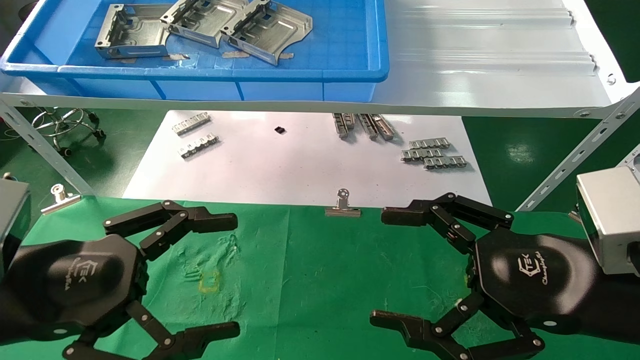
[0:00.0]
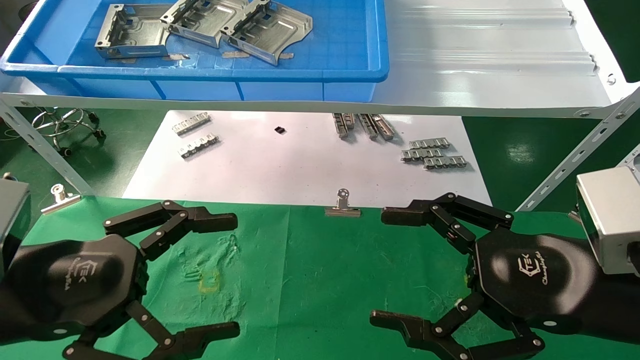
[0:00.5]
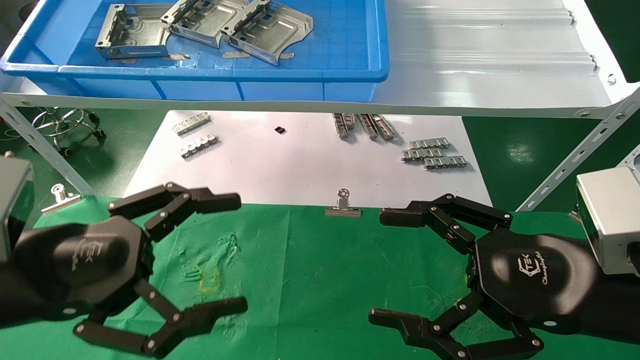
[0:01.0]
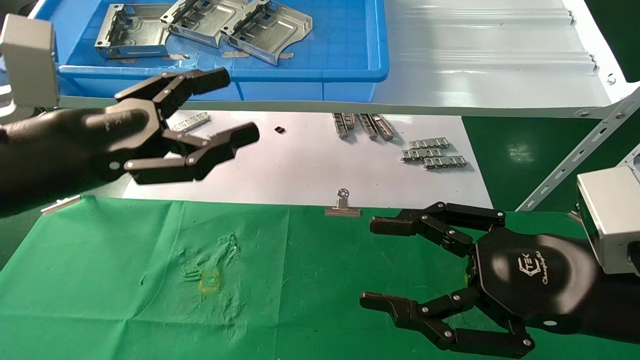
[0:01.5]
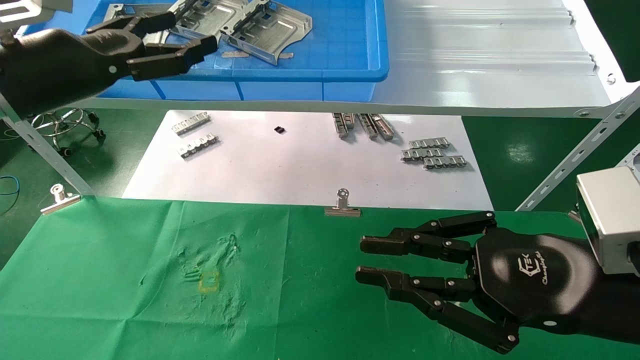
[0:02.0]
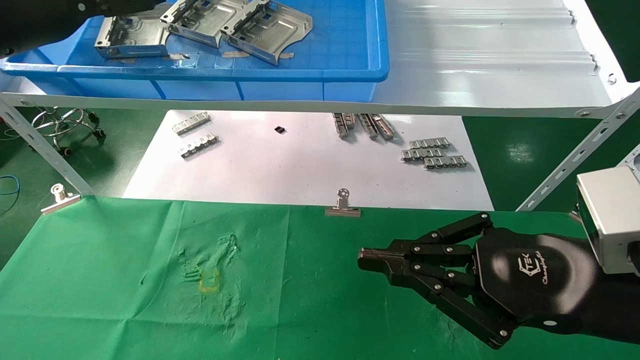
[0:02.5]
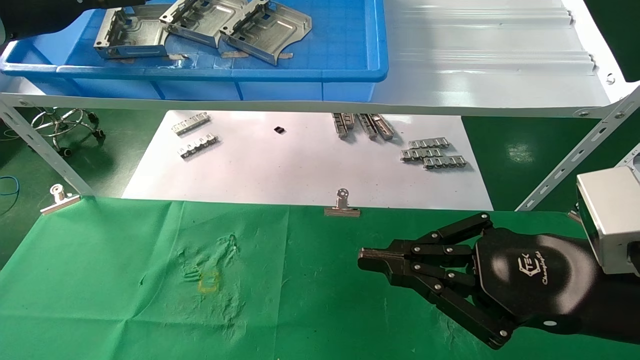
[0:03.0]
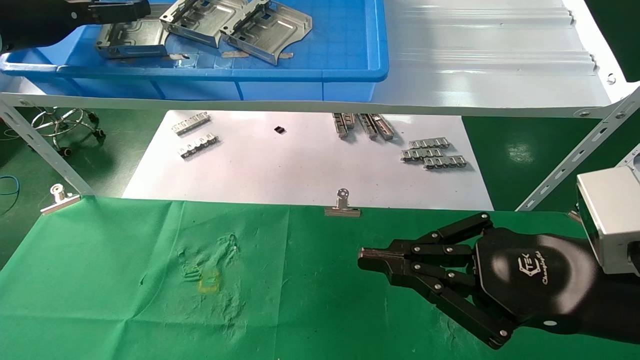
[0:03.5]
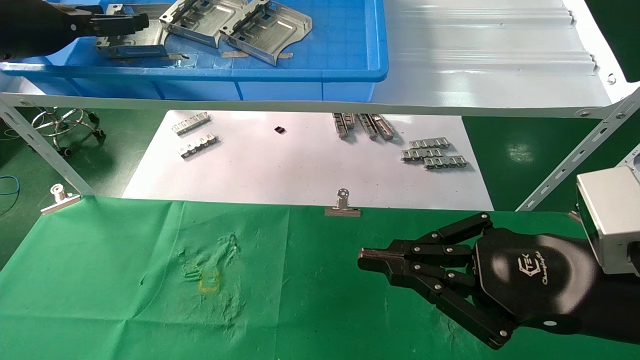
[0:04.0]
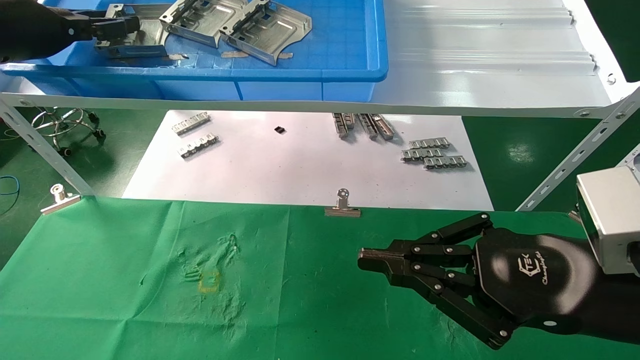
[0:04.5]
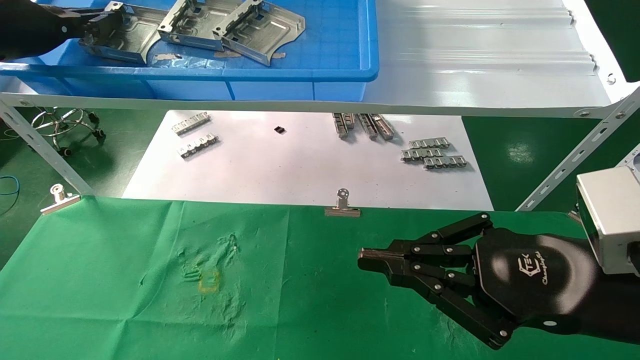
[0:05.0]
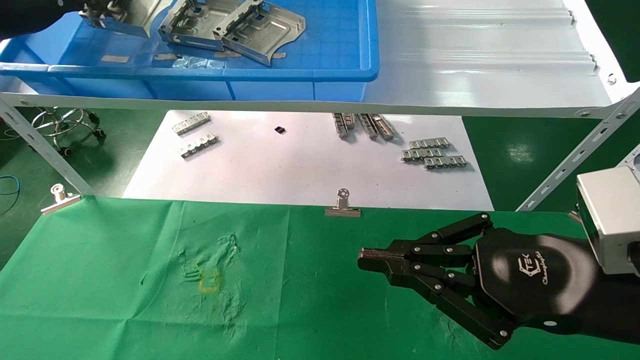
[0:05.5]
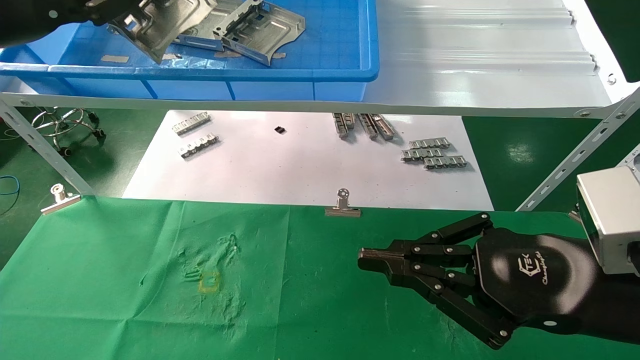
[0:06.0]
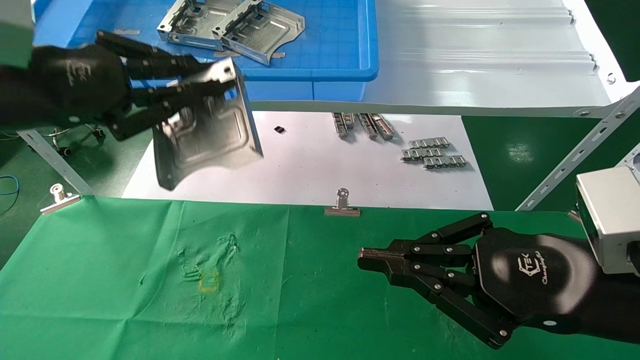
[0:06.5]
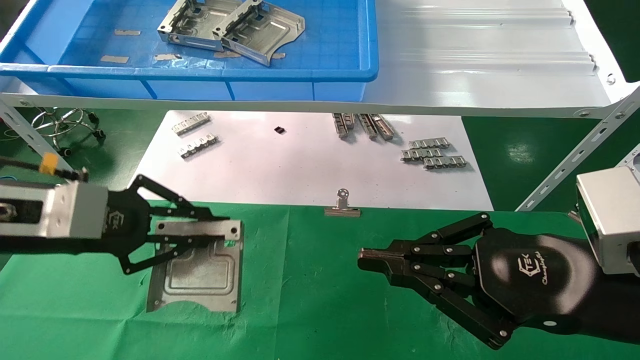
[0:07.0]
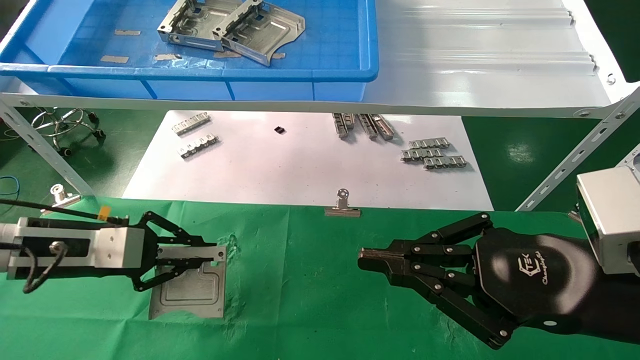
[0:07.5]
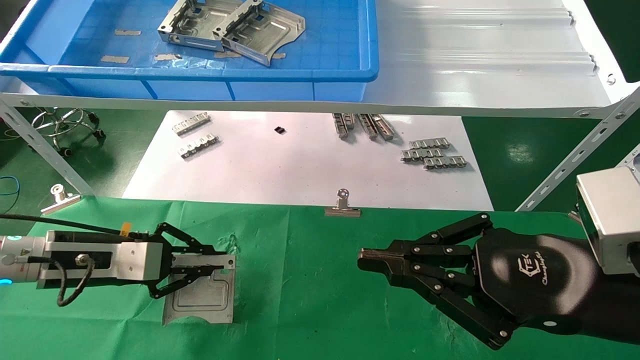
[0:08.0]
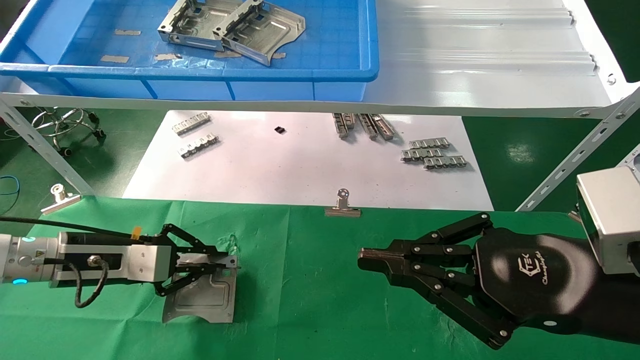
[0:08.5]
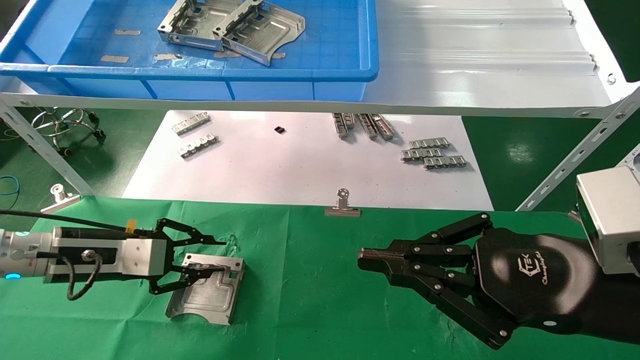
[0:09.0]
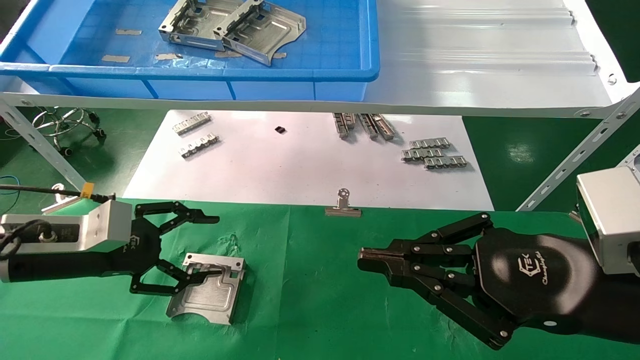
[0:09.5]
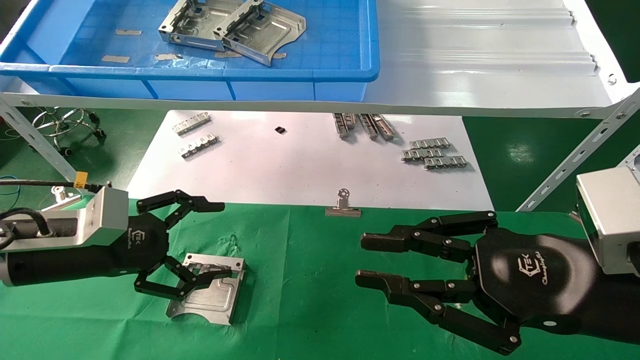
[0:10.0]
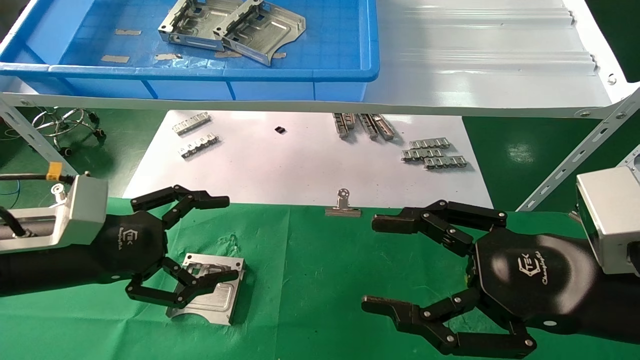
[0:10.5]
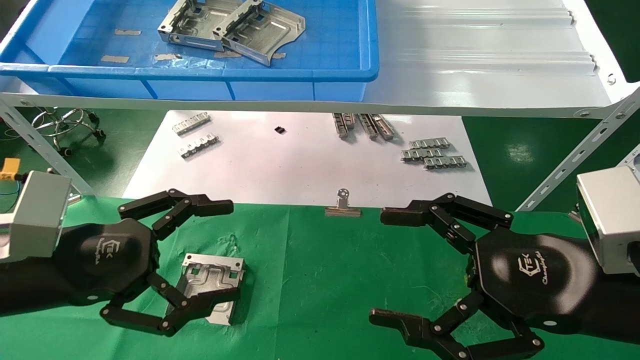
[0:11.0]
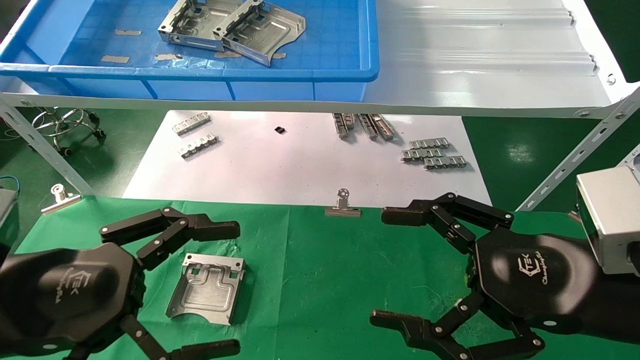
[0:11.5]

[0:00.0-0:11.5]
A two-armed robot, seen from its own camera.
Task of the whole recording: use the mechanical arm to pick up the parts and place them on the table.
Step, 0:01.5 to 0:05.0: Pick up the hard drive bracket from the feeding area.
Step, 0:05.5 to 0:08.5: Place the hard drive bracket into the box.
0:00.0 to 0:02.0: The left gripper goes roughly 20 cm upward and forward. The right gripper closes its fingers.
0:02.0 to 0:04.0: The left gripper heads to the left, forward and upward, covering roughly 10 cm.
0:04.0 to 0:06.0: The left gripper is displaced backward by roughly 5 cm, and closes up.
0:06.0 to 0:07.5: The left gripper shifts about 25 cm downward.
0:07.5 to 0:09.5: The left gripper opens up.
0:09.5 to 0:11.5: The right gripper opens up. Meanwhile the left gripper is displaced backward by about 15 cm, and opens.

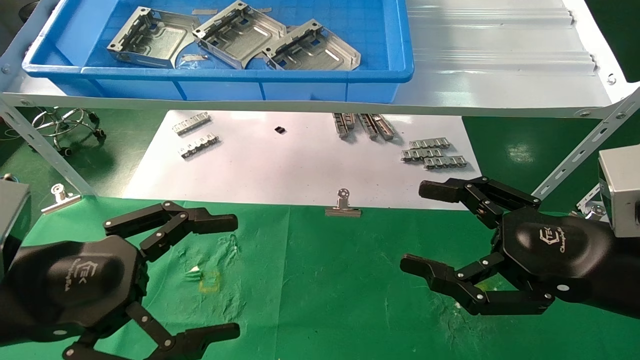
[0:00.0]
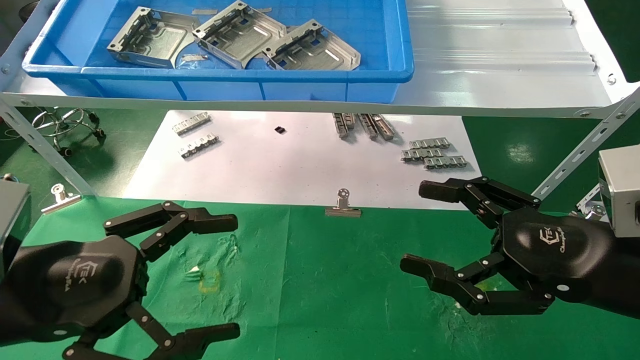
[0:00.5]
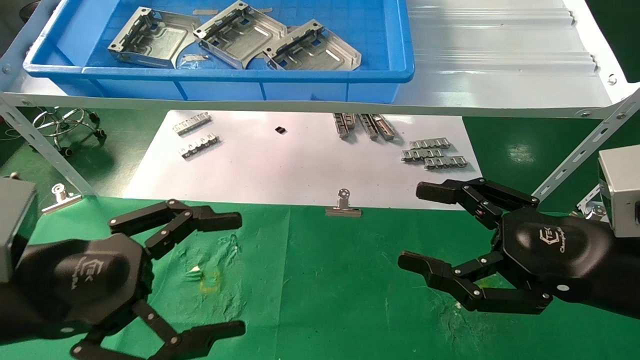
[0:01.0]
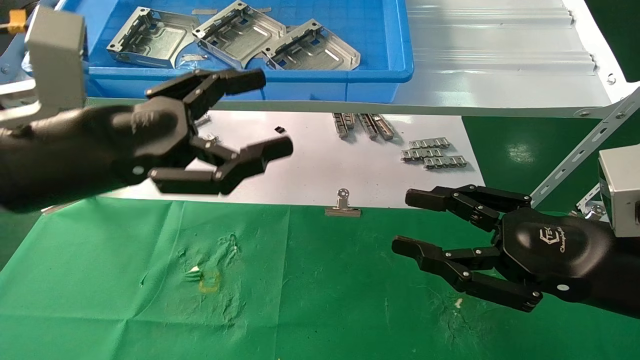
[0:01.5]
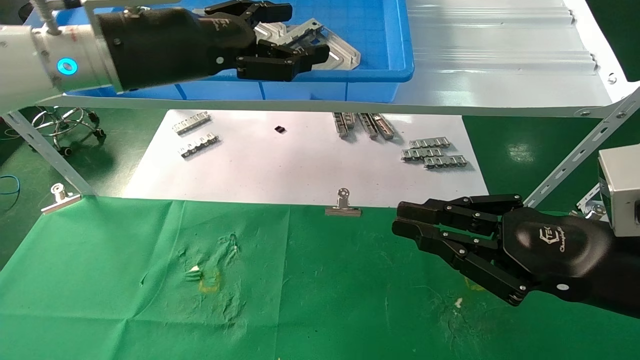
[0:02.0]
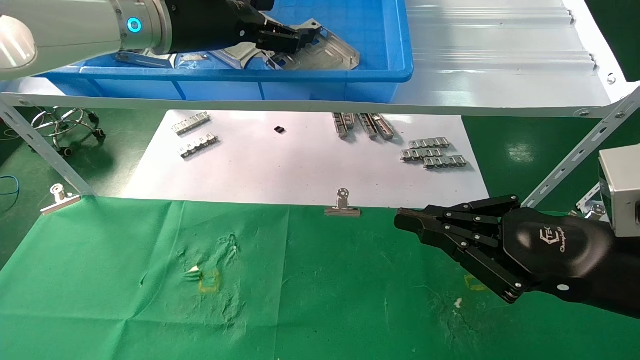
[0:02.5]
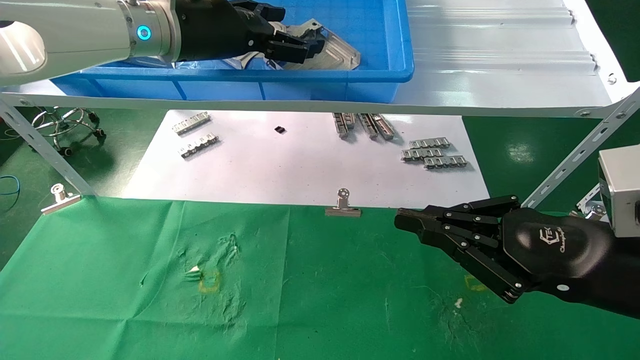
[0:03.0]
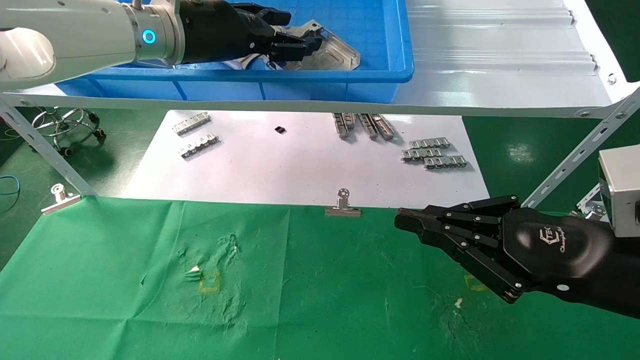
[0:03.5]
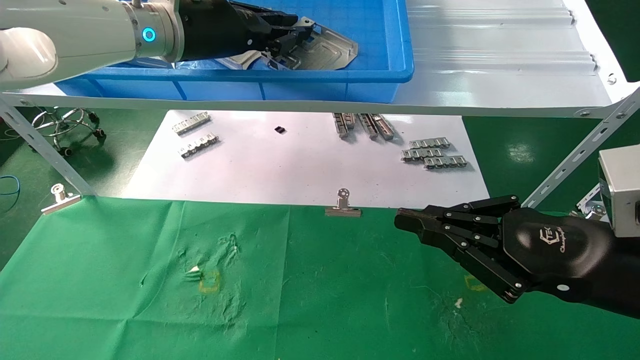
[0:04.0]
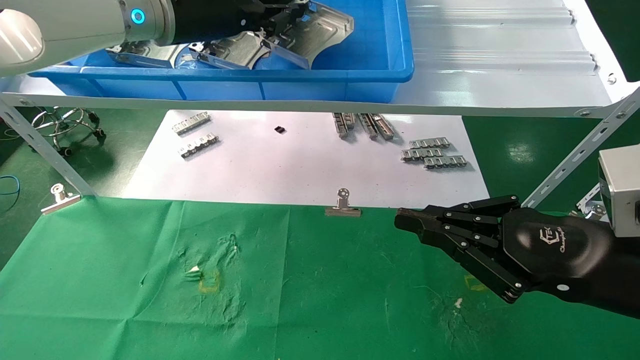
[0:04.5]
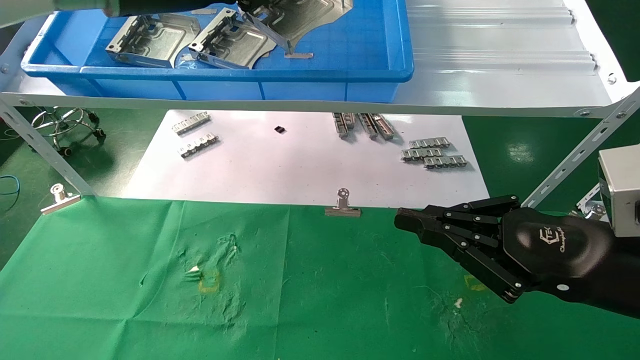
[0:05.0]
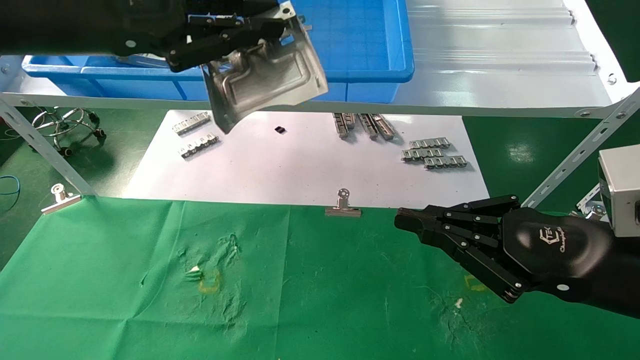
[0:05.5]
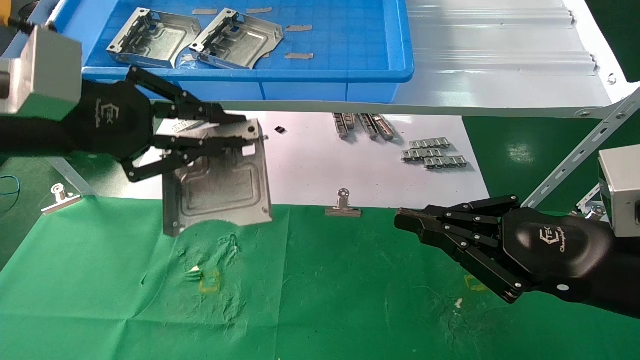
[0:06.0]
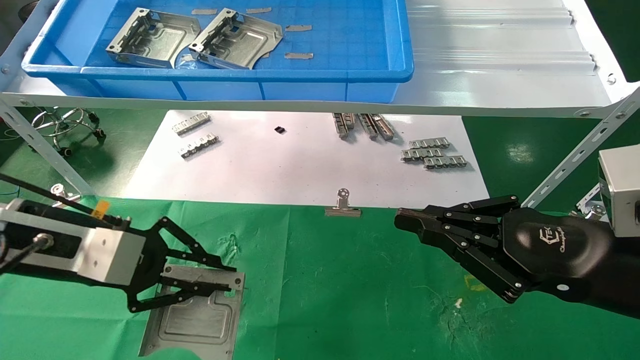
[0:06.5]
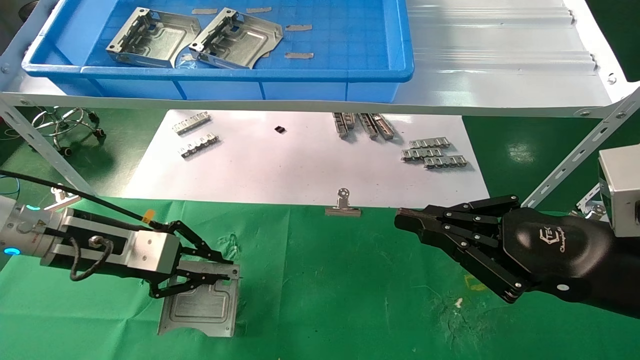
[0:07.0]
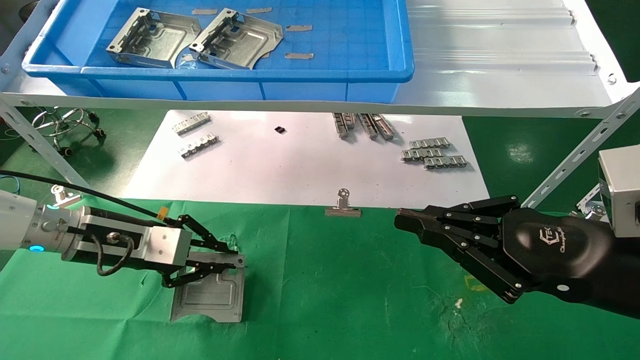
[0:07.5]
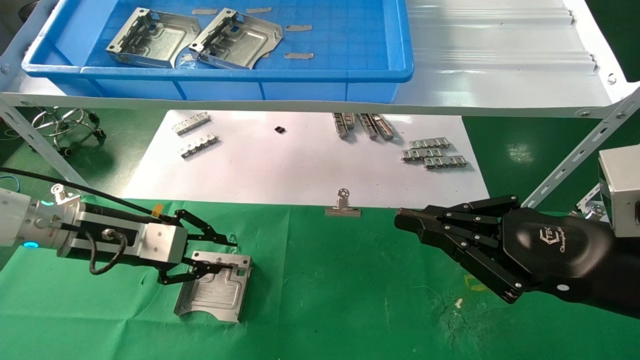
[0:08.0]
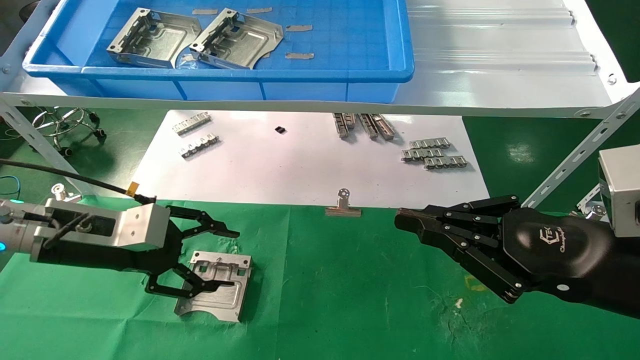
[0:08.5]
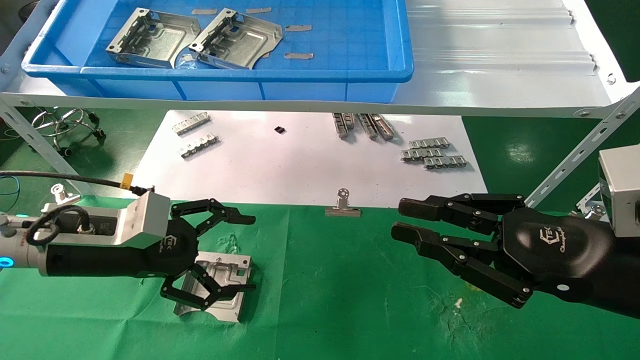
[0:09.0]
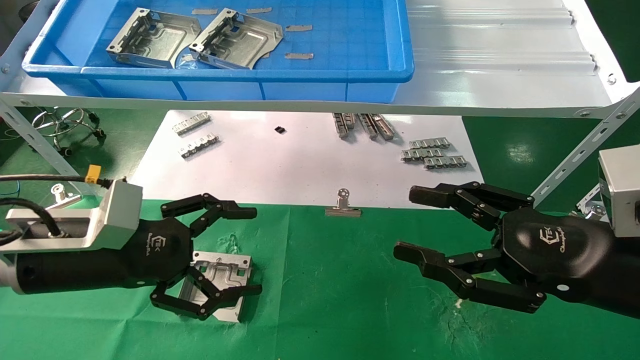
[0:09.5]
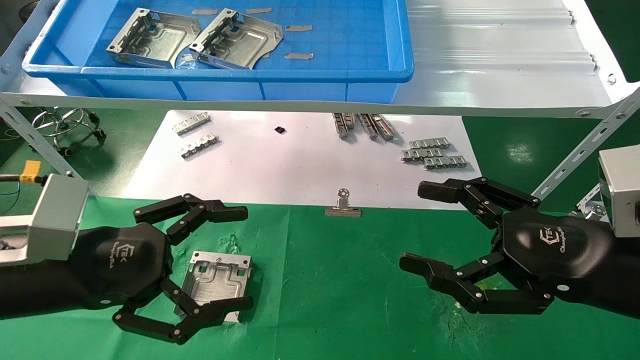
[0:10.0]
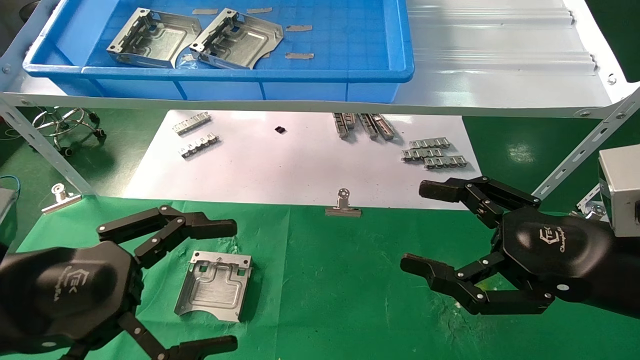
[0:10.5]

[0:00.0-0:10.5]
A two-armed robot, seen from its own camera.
Task of the whole recording: use the mechanical arm to pick up the parts and place them on the table.
Step, 0:01.5 to 0:04.0: Pick up the hard drive bracket from the feeding area.
Step, 0:04.5 to 0:08.0: Place the hard drive bracket into the box.
0:00.0 to 0:02.0: The right gripper closes its fingers, while the left gripper moves upward, forward and to the right, approximately 25 cm.
0:02.0 to 0:04.0: The left gripper heads forward, covering some 5 cm, and closes.
0:04.0 to 0:06.5: The left gripper shifts approximately 25 cm downward, to the left and backward.
0:06.5 to 0:08.5: The left gripper opens its fingers.
0:08.5 to 0:10.5: The left gripper is displaced backward by roughly 15 cm, and opens, while the right gripper opens its fingers.
